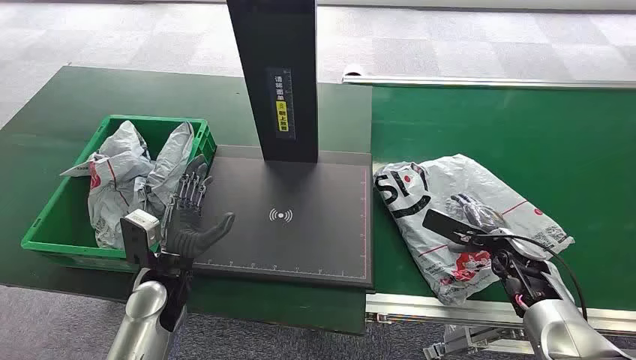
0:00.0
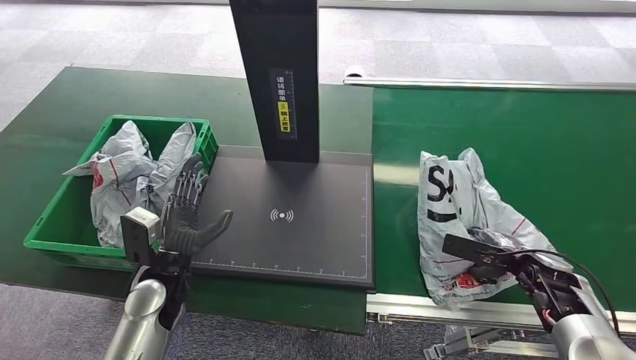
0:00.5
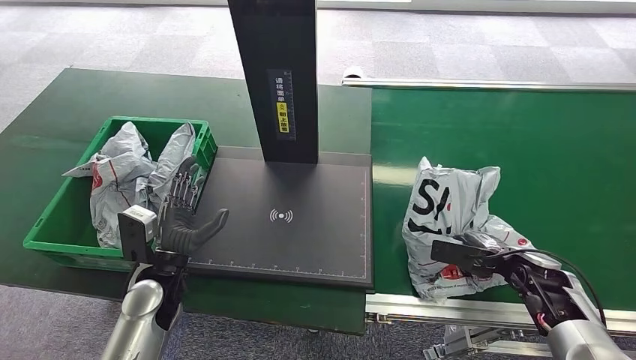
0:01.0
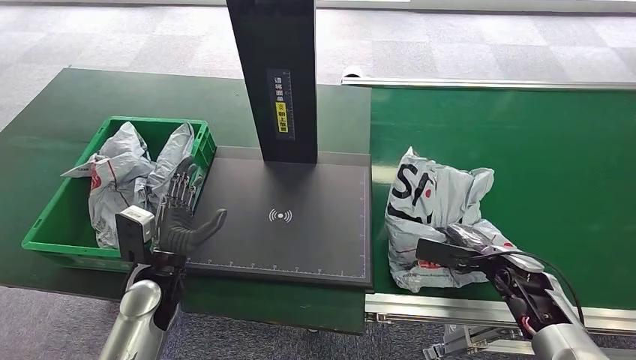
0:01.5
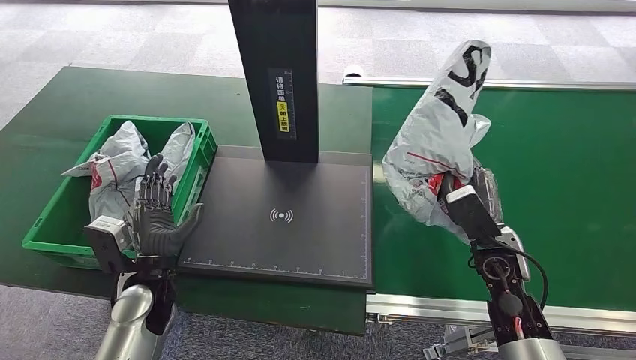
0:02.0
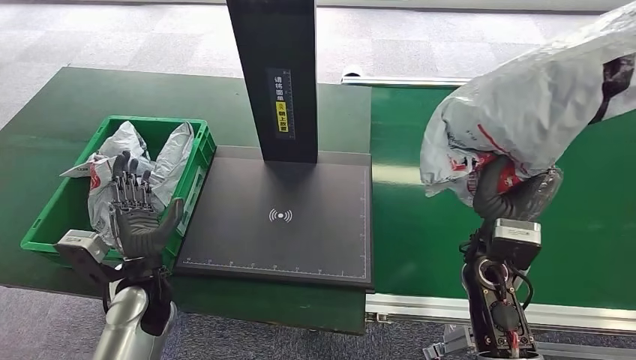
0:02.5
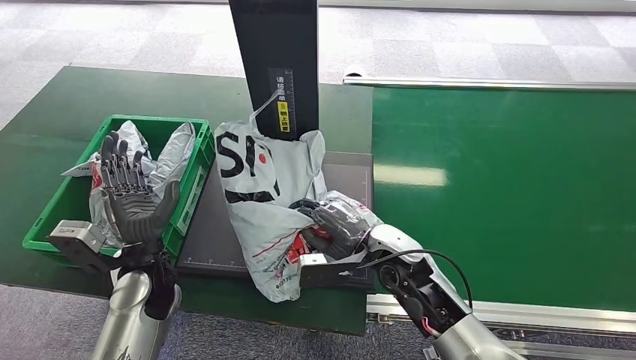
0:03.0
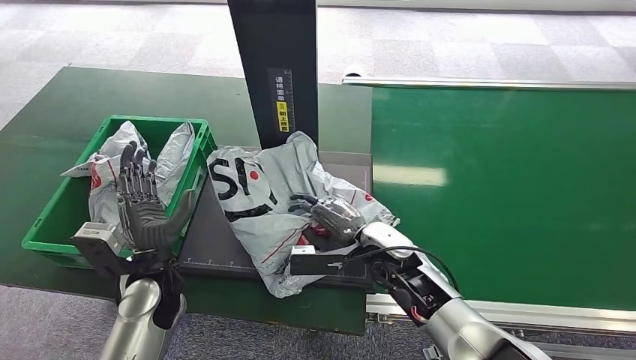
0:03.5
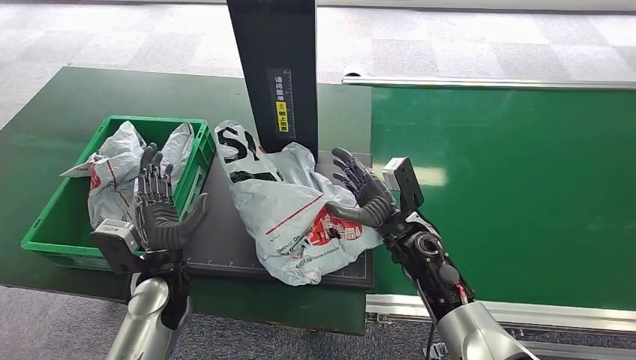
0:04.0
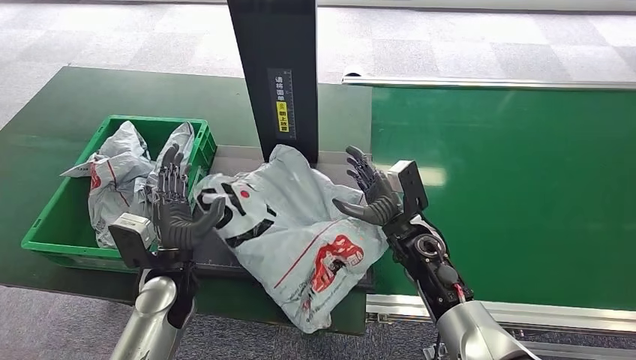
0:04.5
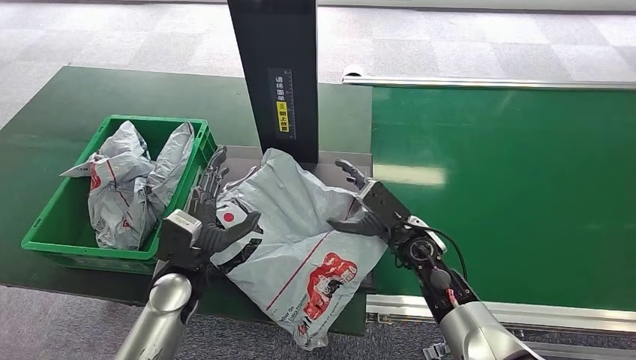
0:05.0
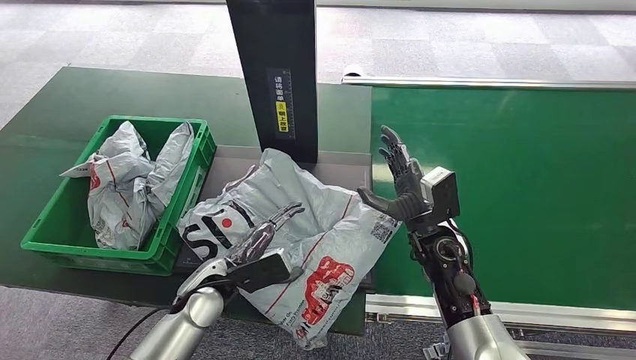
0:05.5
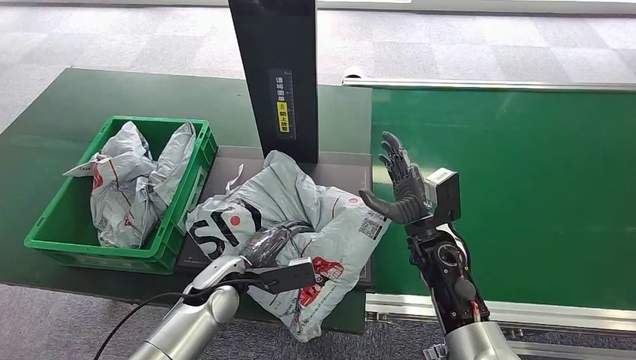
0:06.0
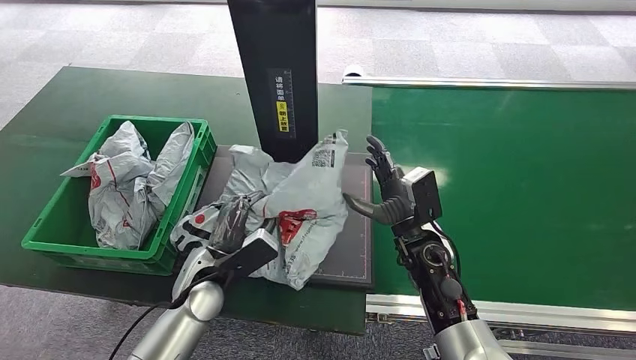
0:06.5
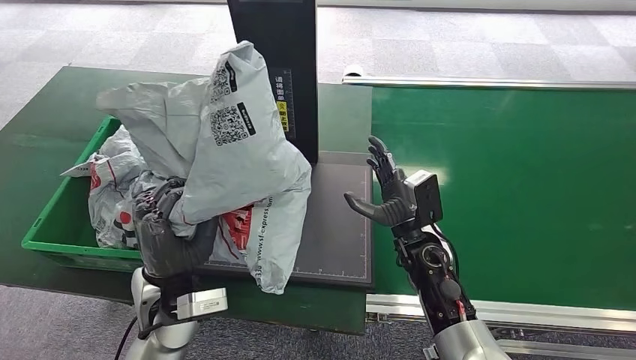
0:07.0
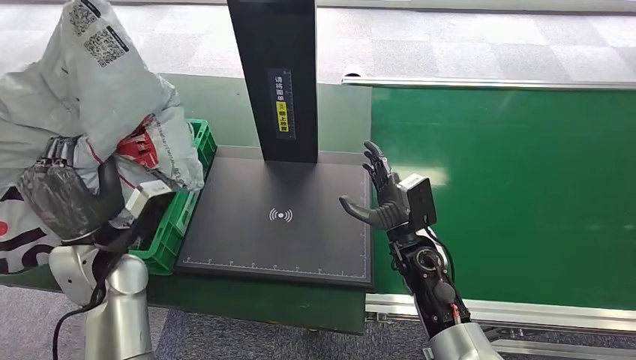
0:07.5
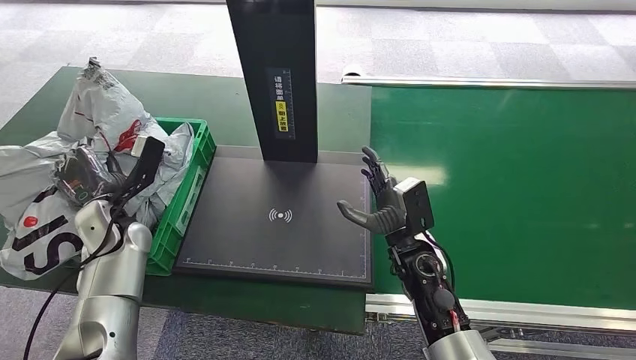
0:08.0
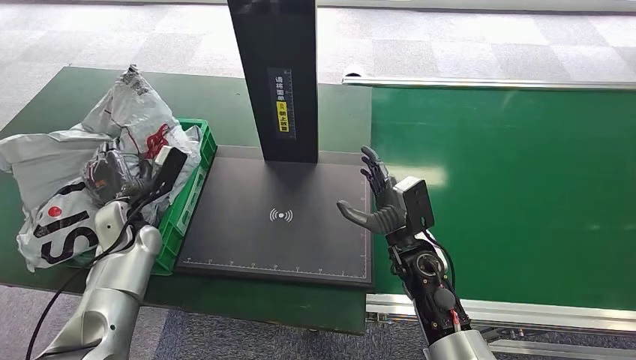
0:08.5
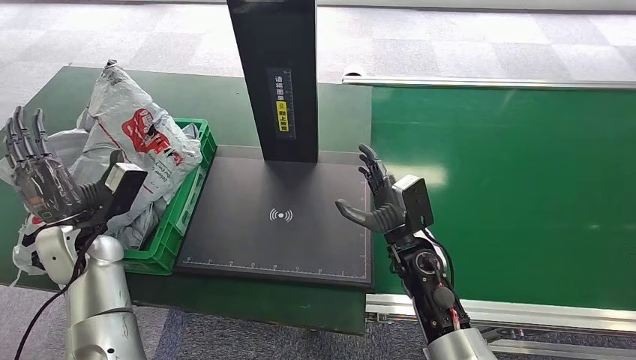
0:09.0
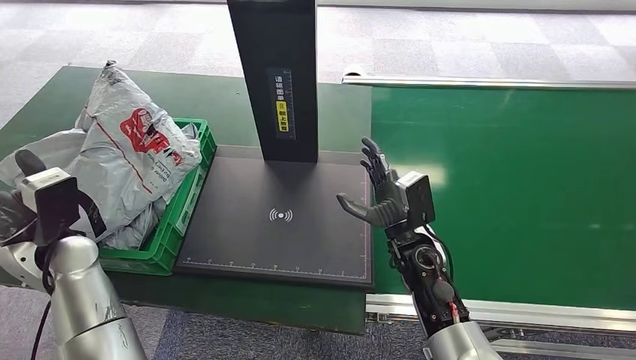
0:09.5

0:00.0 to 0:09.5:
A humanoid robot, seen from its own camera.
Step, 0:00.0 to 0:02.0: Pick up the package from the conveyor belt.
Step, 0:02.5 to 0:05.5: Place the package onto the inbound machine.
Step, 0:06.0 to 0:07.0: Pick up the package from the inbound machine.
Step, 0:07.5 to 0:09.5: Place the package into the parcel locker.
0:04.0 to 0:05.5: The left hand moves to the right, approximately 5 cm.
0:07.5 to 0:09.5: The left hand heads to the left, covering approximately 5 cm, and moves roughly 10 cm downward and comes back.
